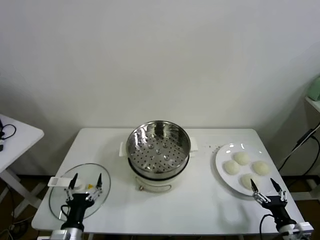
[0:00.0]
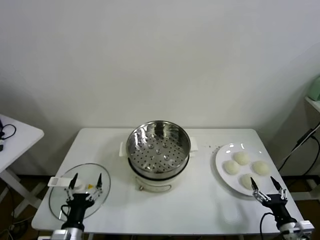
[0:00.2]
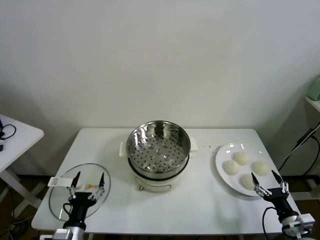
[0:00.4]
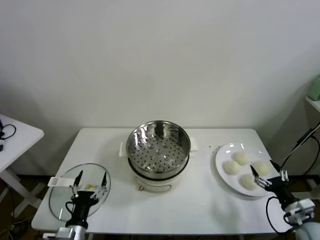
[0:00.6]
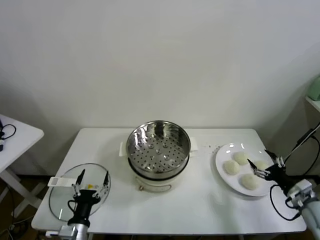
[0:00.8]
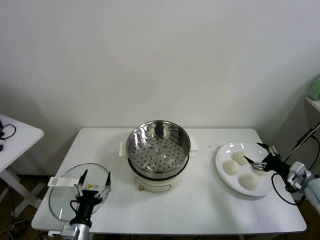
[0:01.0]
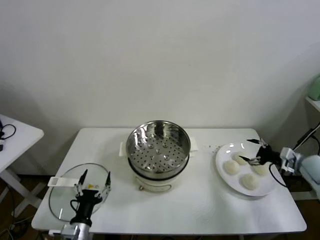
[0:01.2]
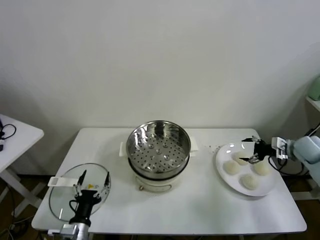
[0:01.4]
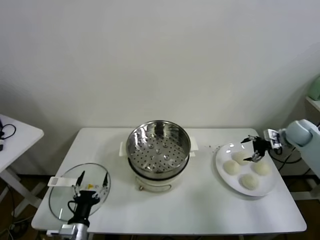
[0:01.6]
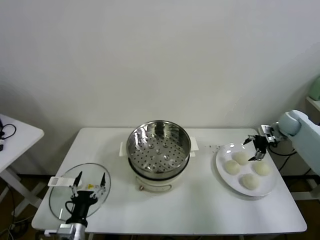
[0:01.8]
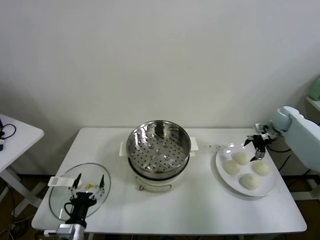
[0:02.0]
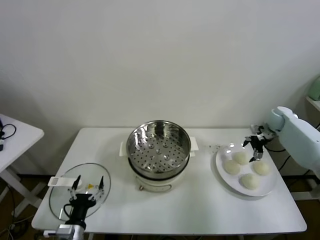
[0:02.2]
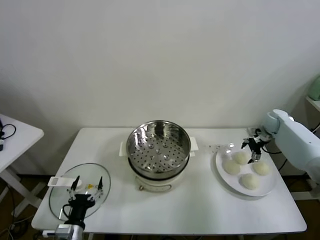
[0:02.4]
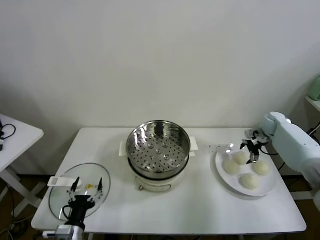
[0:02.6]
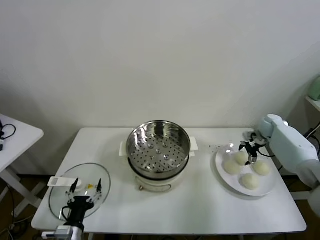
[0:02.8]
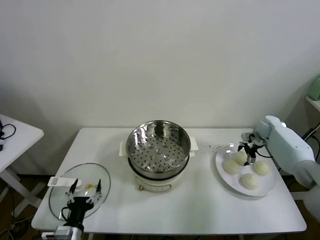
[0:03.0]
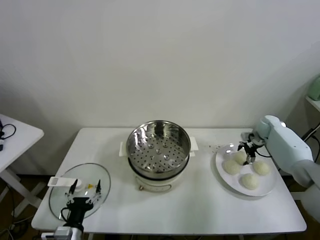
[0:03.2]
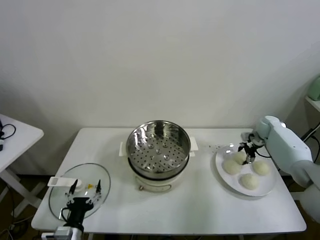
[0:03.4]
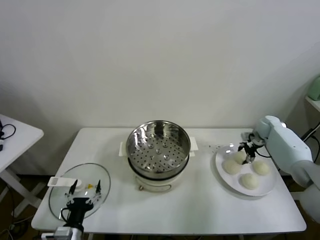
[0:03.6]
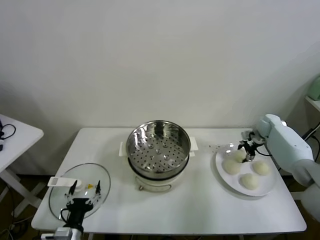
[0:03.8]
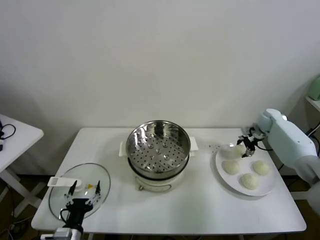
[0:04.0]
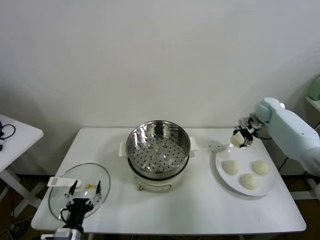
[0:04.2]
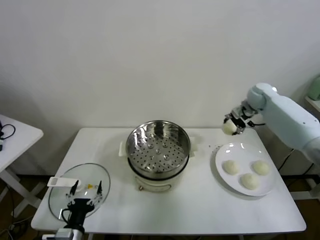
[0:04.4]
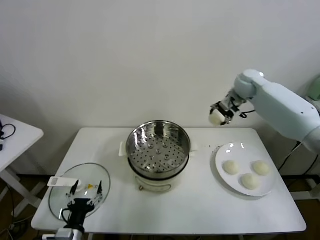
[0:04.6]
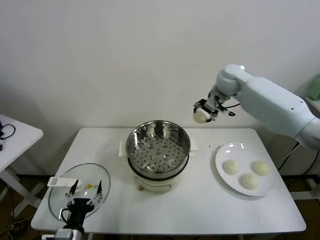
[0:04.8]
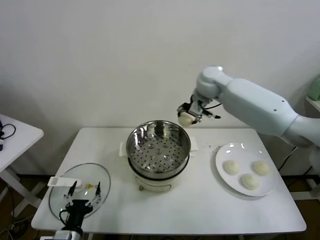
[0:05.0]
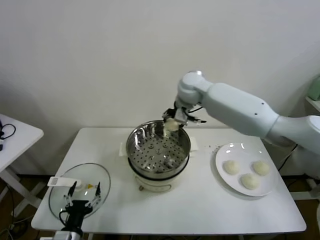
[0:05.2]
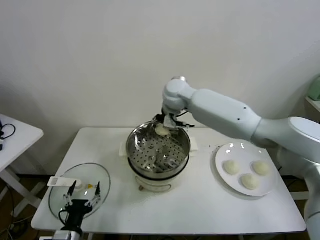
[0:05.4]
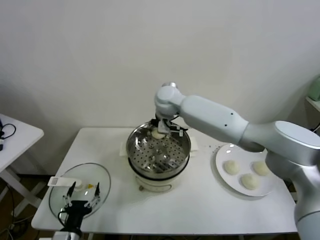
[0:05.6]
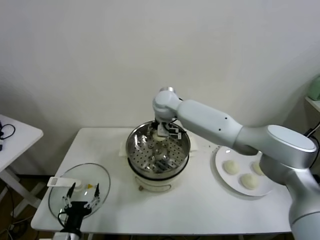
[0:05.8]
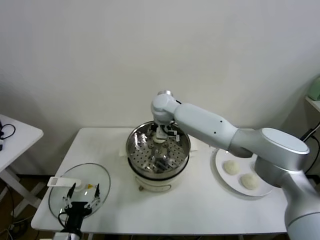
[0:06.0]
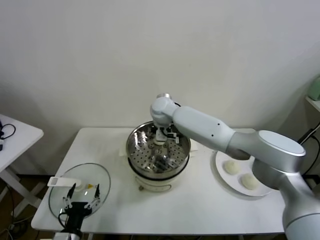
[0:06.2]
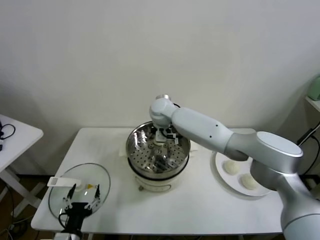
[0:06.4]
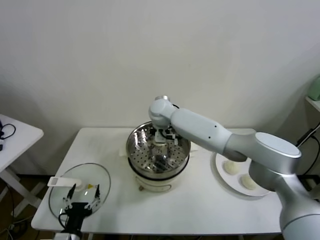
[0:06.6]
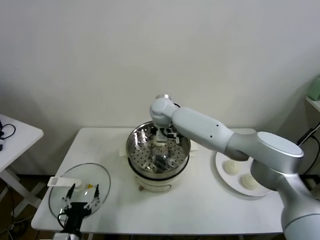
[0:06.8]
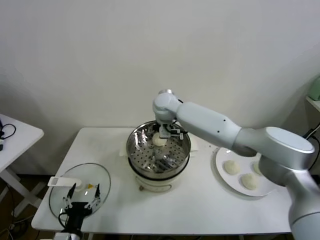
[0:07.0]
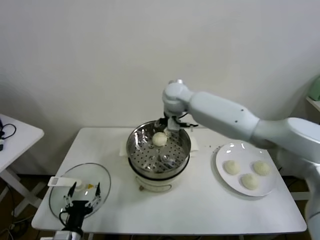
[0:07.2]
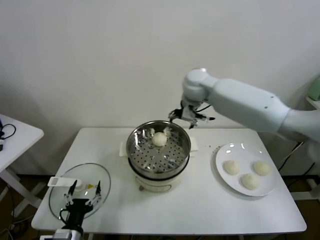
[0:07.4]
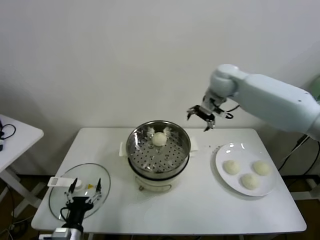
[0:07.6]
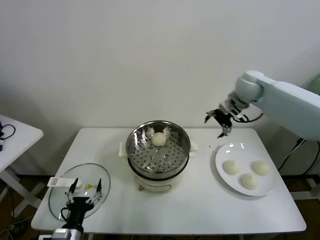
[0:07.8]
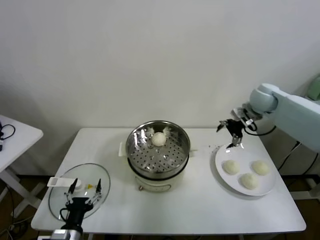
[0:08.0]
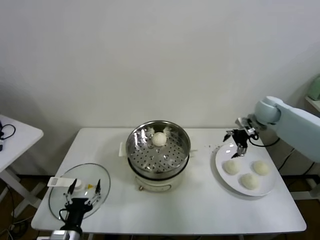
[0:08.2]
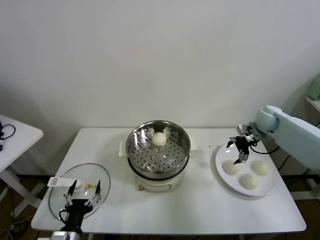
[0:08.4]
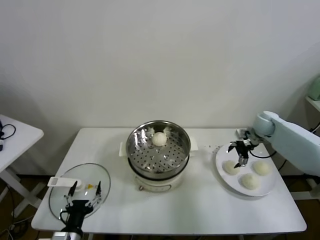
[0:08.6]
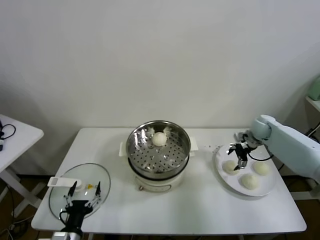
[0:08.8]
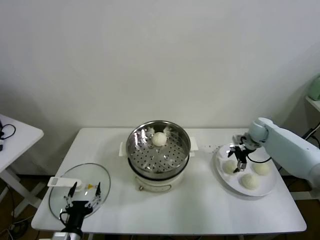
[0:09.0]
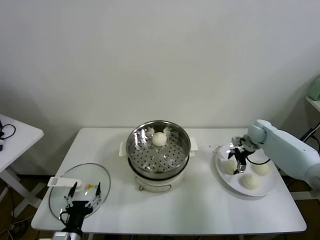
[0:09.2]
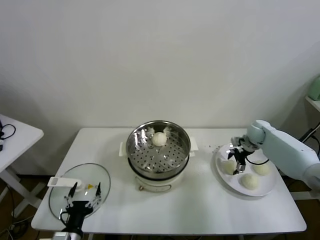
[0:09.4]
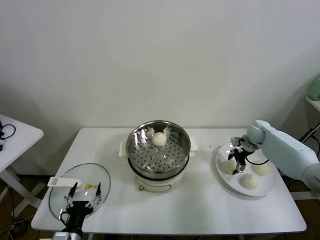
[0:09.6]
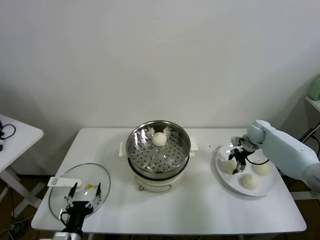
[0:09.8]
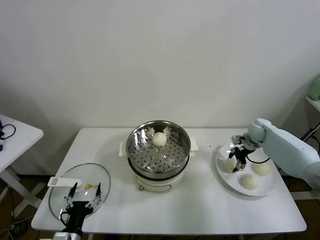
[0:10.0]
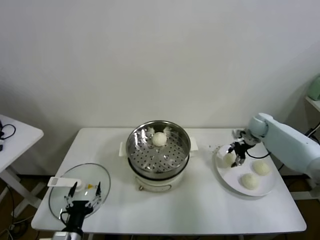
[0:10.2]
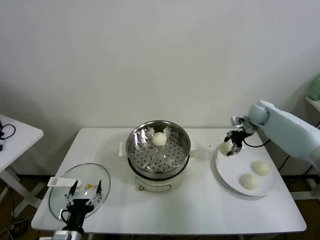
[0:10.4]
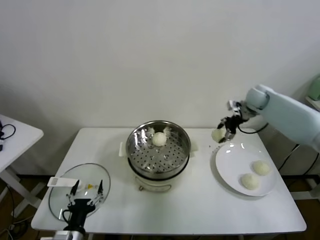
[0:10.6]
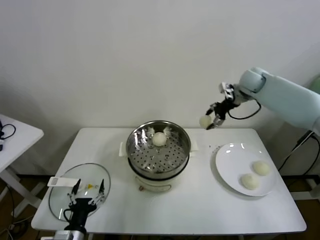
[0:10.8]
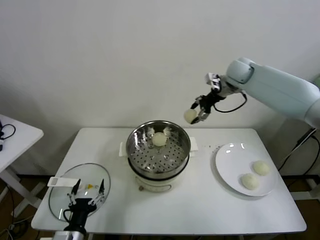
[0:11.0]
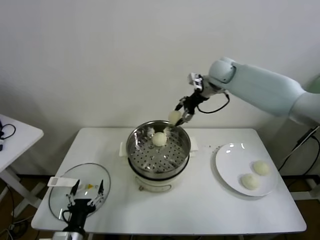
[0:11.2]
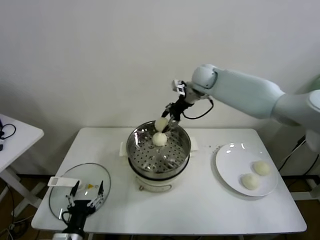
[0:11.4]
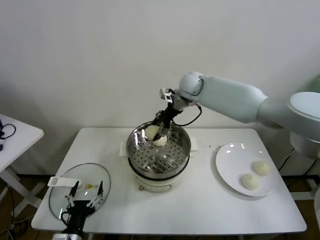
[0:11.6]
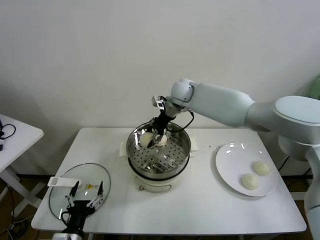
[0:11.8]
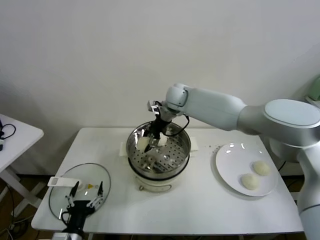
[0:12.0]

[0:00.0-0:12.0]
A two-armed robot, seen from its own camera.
Task of the whole recording: take steamed baozi put them in steamer.
Step, 0:00.0 to 0:03.6: Grasp the baozi in the plate with right gripper.
Step, 0:03.8 to 0:06.6: Place the baozi on the steamer with right gripper.
Step, 0:07.0 to 0:09.6: Grasp the baozi in the plate with right gripper.
0:01.6 to 0:03.0: The right gripper travels downward and forward by roughly 10 cm.
0:03.0 to 0:04.4: The right gripper heads upward and to the left, covering approximately 20 cm, and closes up.
0:04.4 to 0:06.0: The right gripper travels to the left by roughly 35 cm.
0:06.0 to 0:07.6: The right gripper shifts roughly 25 cm to the right and upward, and opens up.
0:07.6 to 0:09.0: The right gripper travels downward and to the right by some 30 cm.
0:09.0 to 0:10.4: The right gripper is displaced upward by roughly 10 cm, and closes its fingers.
0:10.4 to 0:12.0: The right gripper heads to the left, covering roughly 35 cm.

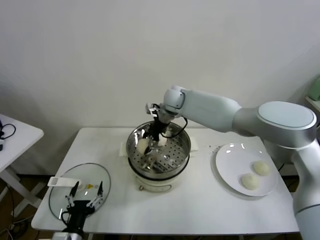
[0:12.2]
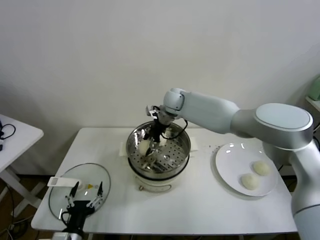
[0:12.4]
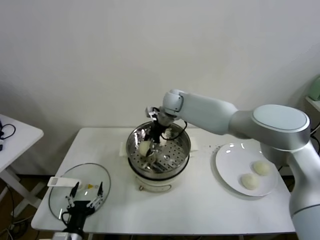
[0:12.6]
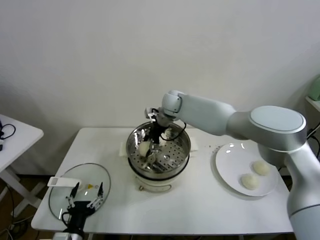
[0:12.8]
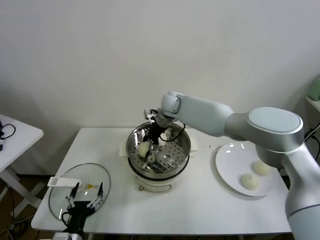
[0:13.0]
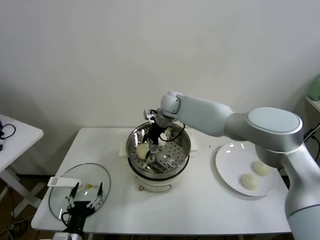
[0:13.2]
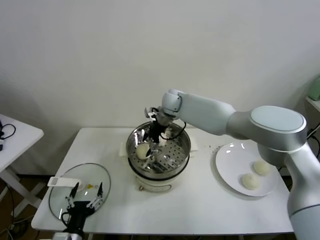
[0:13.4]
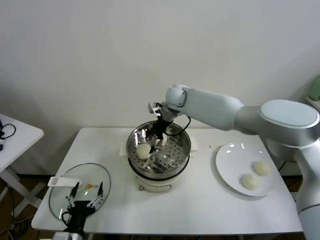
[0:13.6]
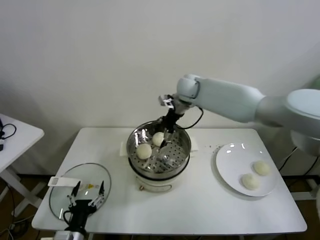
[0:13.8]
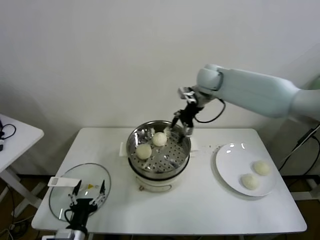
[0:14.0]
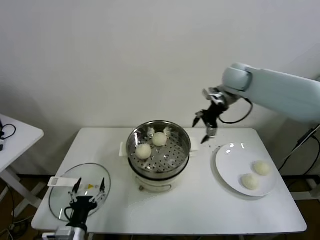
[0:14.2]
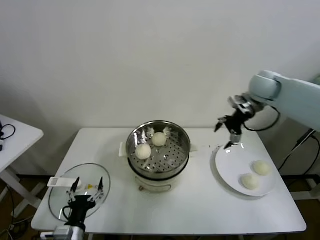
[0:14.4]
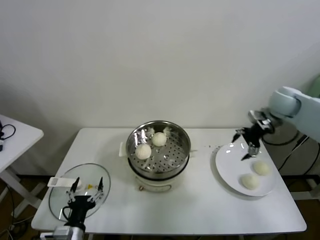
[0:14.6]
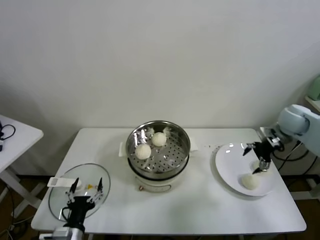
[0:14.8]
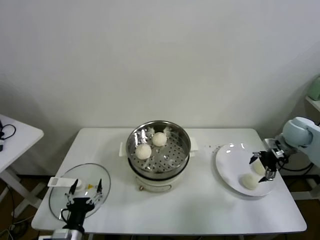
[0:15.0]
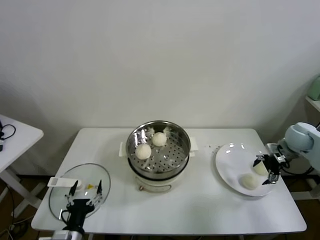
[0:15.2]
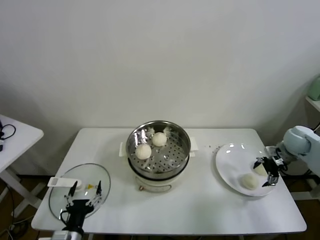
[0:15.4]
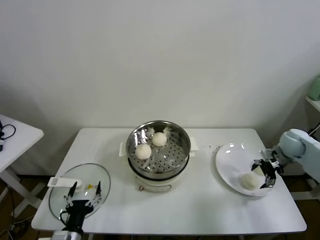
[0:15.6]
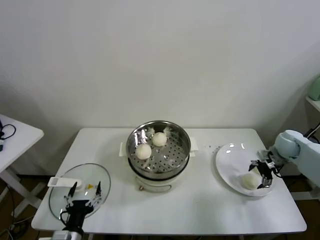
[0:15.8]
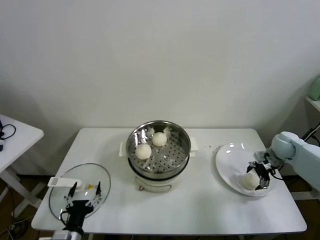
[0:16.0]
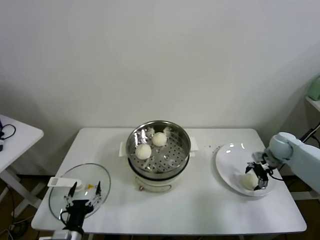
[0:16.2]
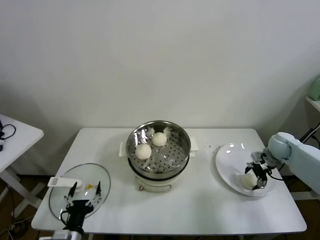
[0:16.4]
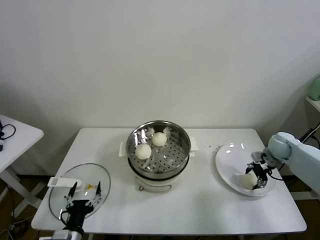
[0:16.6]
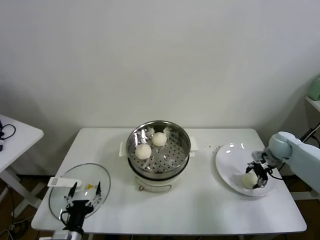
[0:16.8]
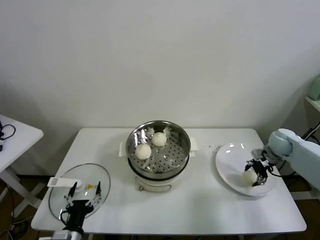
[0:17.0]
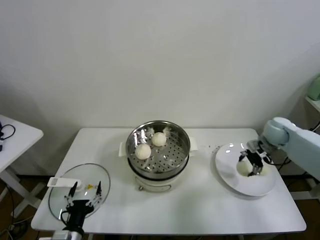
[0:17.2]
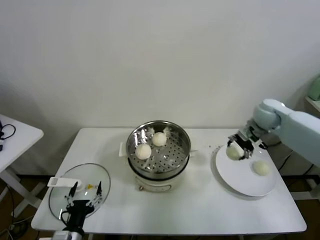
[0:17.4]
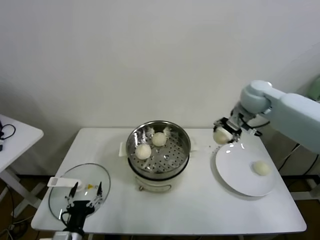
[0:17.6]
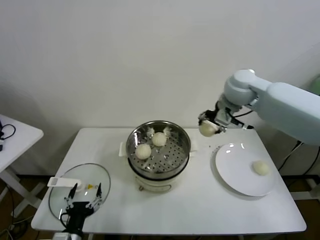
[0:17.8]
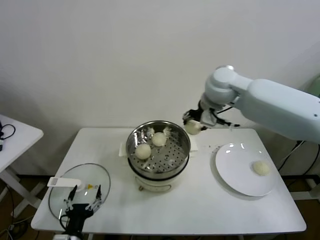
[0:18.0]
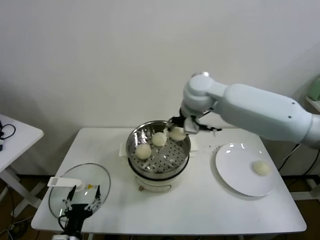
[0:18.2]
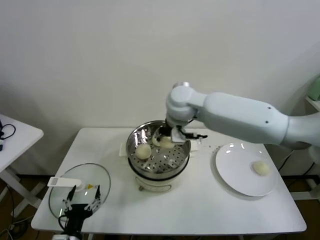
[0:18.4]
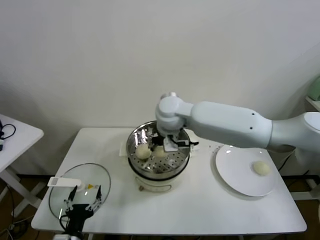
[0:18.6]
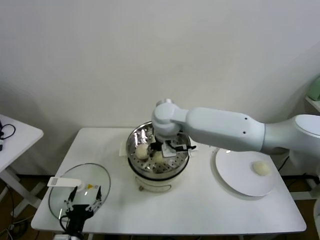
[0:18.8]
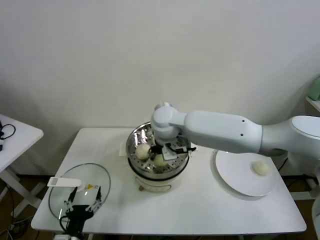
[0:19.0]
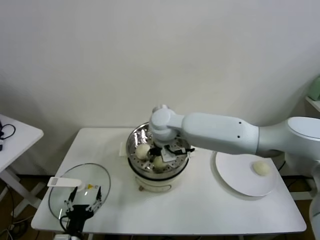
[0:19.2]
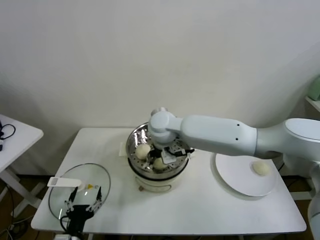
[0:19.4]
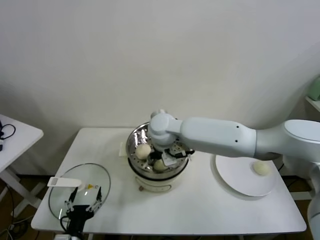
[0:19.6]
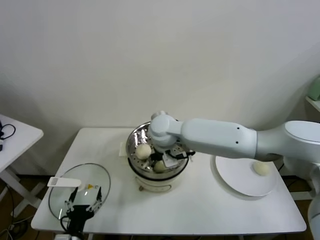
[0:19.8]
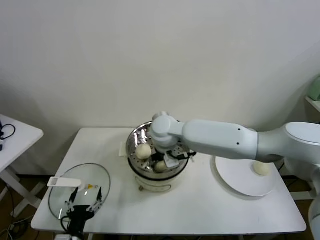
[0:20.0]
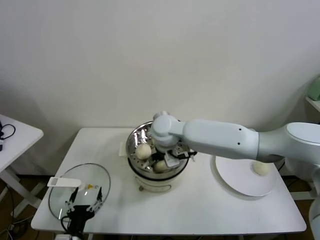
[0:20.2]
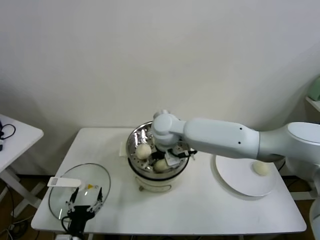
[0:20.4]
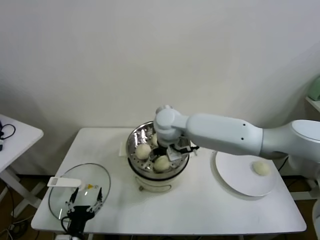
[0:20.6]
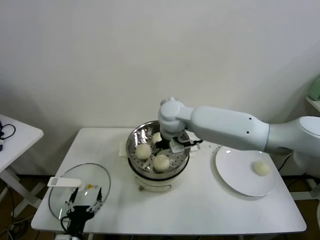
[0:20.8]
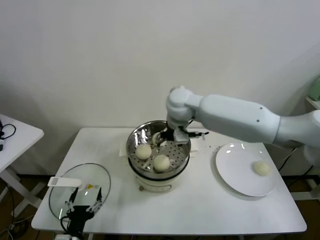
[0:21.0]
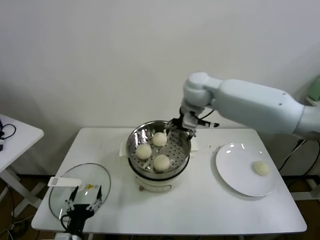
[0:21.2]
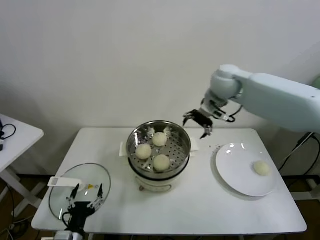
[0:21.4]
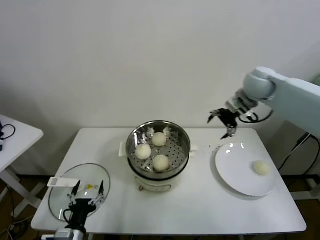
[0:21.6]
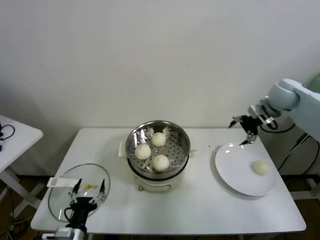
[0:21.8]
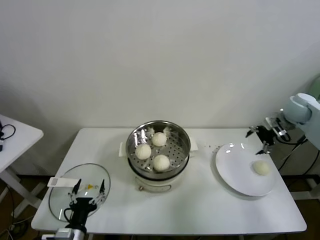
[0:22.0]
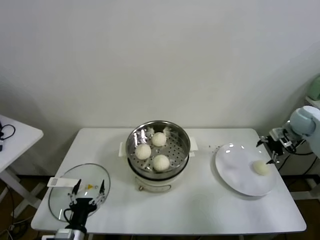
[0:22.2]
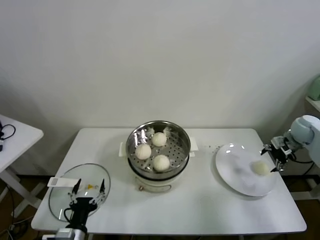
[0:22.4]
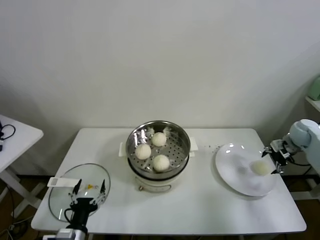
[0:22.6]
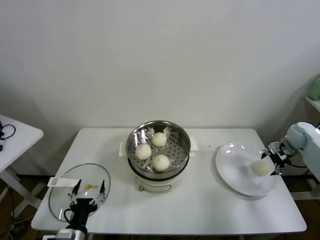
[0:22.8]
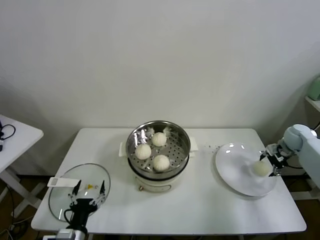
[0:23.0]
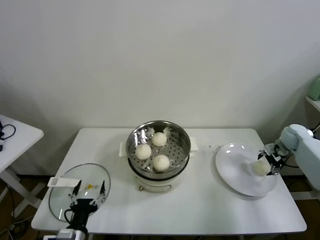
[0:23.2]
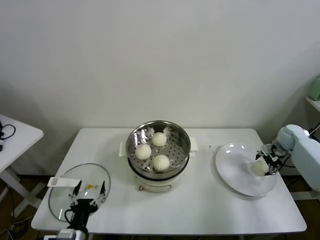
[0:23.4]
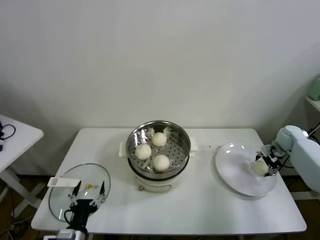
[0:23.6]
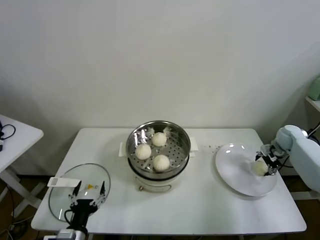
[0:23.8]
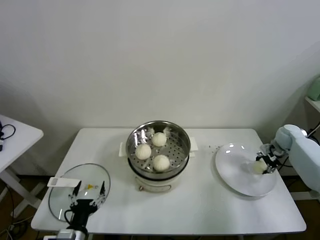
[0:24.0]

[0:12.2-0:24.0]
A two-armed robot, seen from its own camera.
Task of the whole recording: take steamed baozi put them in steamer.
Step, 0:13.4 to 0:16.6: Grasp the baozi in the plate with right gripper.
Step, 0:16.8 to 0:20.2: Place the baozi on the steamer with right gripper.
Step, 0:20.4 to 0:24.0: Grasp the baozi in the plate with right gripper.
0:12.2 to 0:13.6: The right gripper opens.
0:13.6 to 0:15.2: The right gripper moves to the right, roughly 40 cm.
0:15.2 to 0:16.6: The right gripper moves downward, some 5 cm, and closes up.
0:16.6 to 0:18.2: The right gripper is displaced to the left and upward by some 40 cm.
0:18.2 to 0:19.6: The right gripper shifts some 15 cm downward and to the left.
0:19.6 to 0:21.0: The right gripper is displaced upward and to the right by approximately 10 cm, and opens.
0:21.0 to 0:22.6: The right gripper shifts approximately 50 cm to the right.
0:22.6 to 0:24.0: The right gripper shifts roughly 5 cm downward, and closes.
